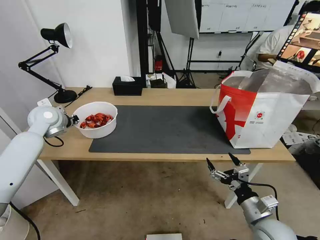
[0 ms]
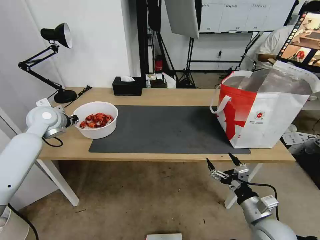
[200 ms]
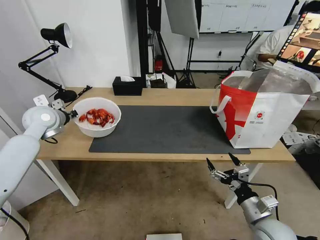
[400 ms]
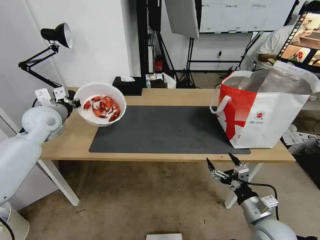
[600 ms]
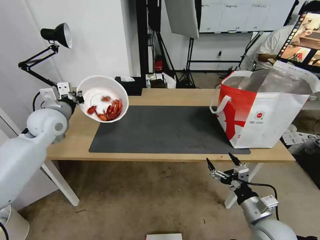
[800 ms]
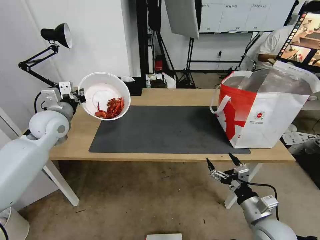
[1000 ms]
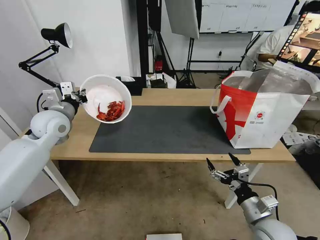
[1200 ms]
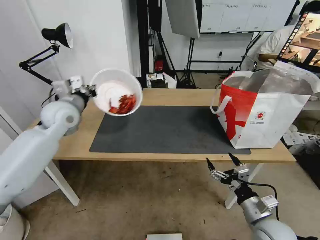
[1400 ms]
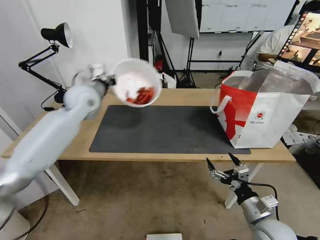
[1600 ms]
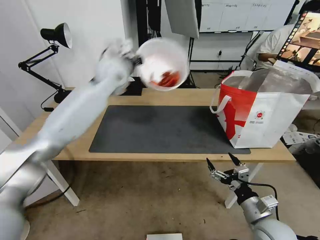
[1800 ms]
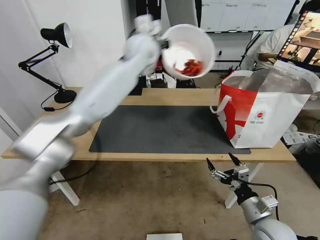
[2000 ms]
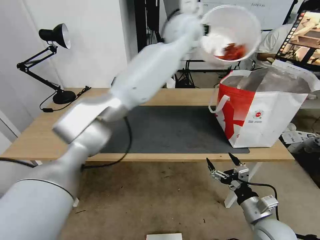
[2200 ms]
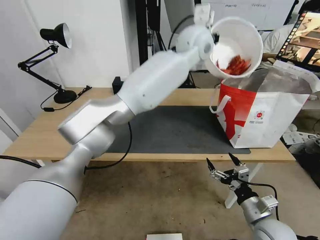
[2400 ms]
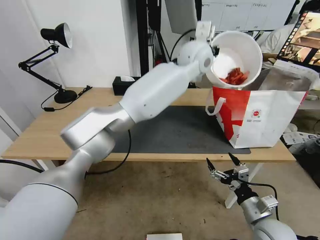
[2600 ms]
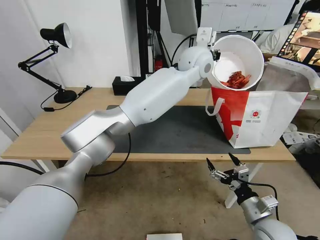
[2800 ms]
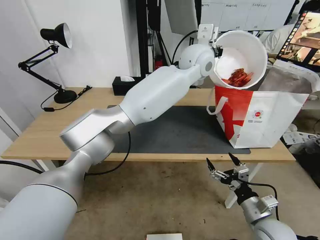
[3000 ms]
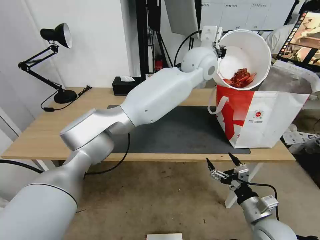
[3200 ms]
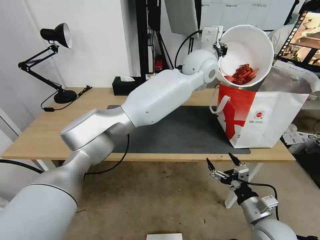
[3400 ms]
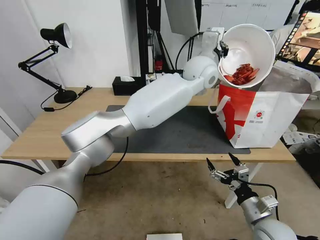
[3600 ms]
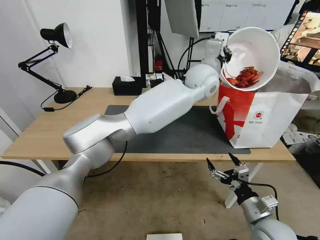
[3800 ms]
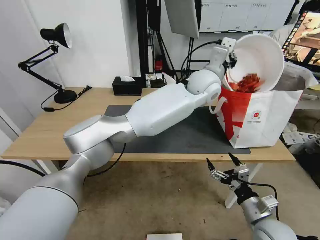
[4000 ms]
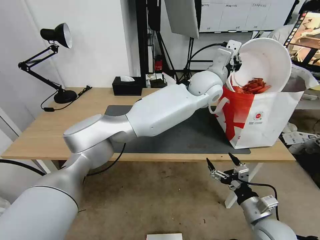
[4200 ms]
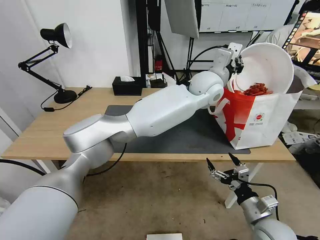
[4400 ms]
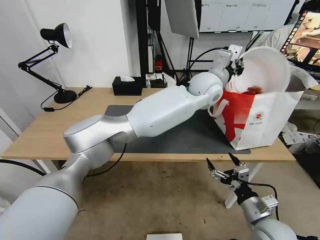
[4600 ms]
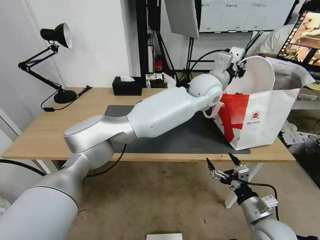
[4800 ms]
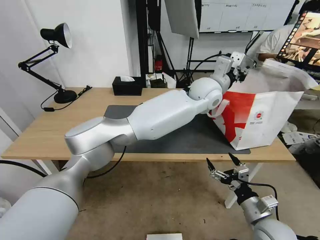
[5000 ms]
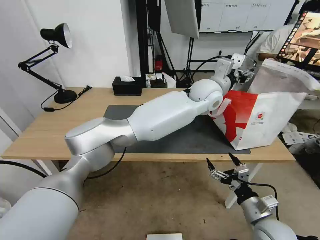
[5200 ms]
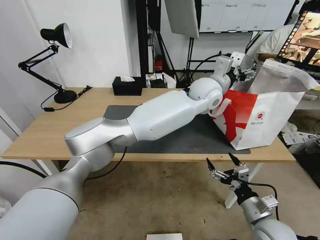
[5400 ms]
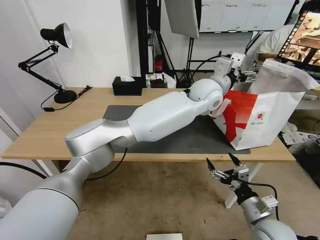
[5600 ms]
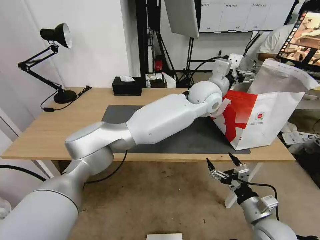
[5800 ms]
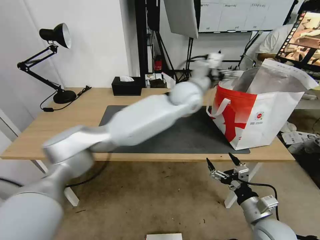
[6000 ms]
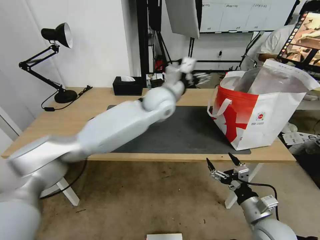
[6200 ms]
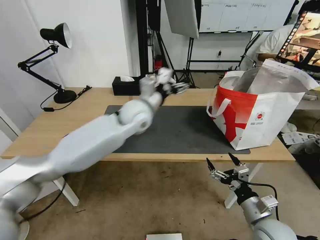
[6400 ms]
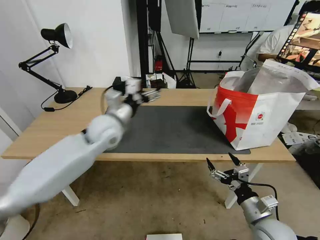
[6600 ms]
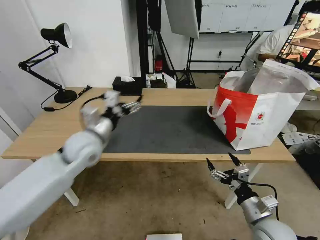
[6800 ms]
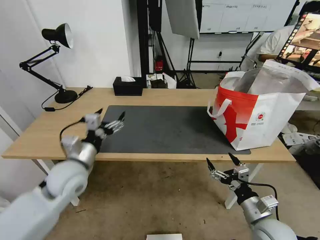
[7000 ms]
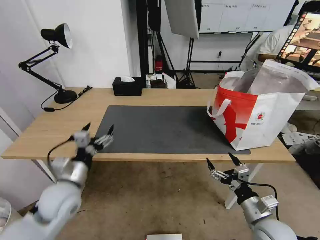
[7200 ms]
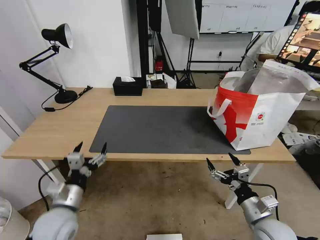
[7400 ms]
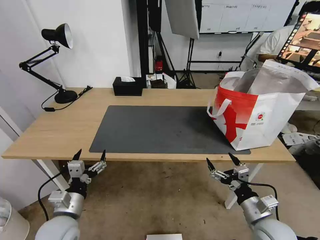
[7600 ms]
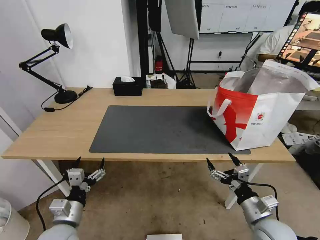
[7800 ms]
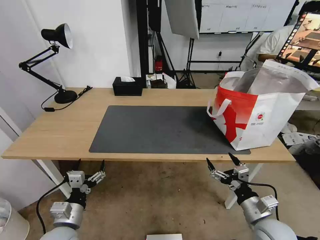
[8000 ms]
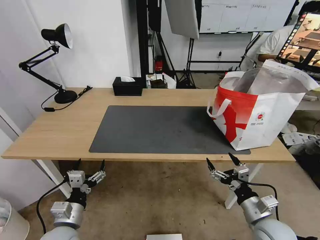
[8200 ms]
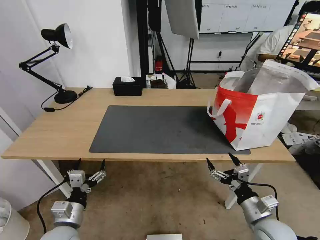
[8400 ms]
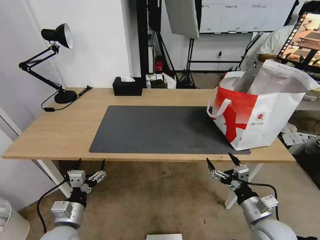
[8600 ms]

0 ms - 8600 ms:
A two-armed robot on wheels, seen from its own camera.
Task of the whole recording: Pick up the trash from the table and place it into the takeout bag.
0 ms - 1400 ms: The left gripper goes some 10 cm to the right.
1400 ms - 2800 ms: The left gripper is displaced to the right by some 40 cm.
2800 ms - 4400 ms: The left gripper is displaced downward by approximately 5 cm.
4400 ms - 5800 ms: The left gripper opens.
5800 ms - 7200 ms: The left gripper moves to the left, backward and downward, some 50 cm.
7200 ms - 8600 ms: The left gripper shifts roughly 10 cm downward and backward.

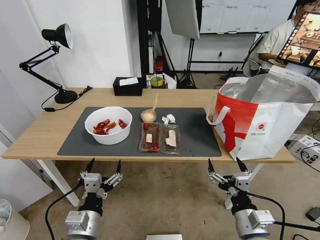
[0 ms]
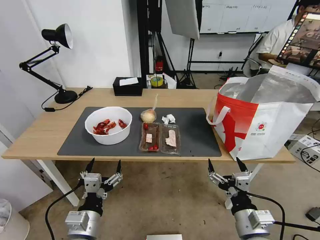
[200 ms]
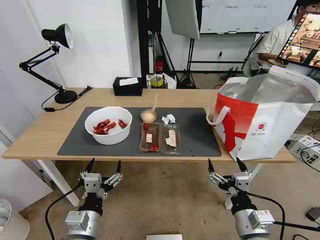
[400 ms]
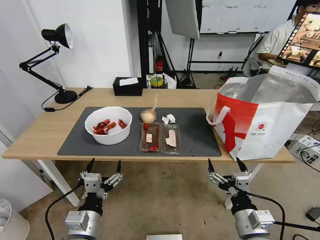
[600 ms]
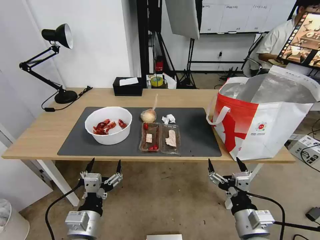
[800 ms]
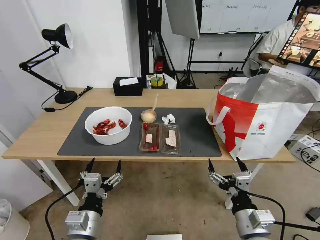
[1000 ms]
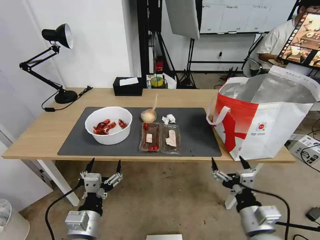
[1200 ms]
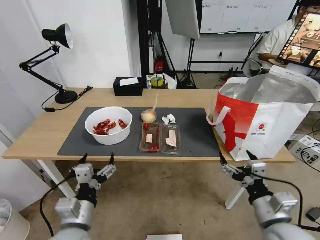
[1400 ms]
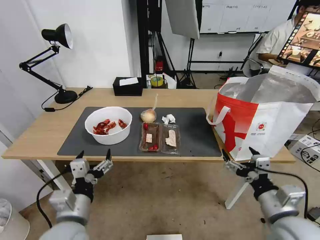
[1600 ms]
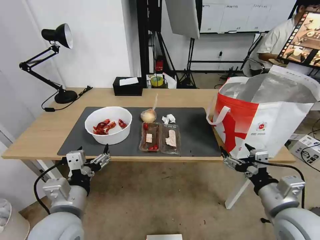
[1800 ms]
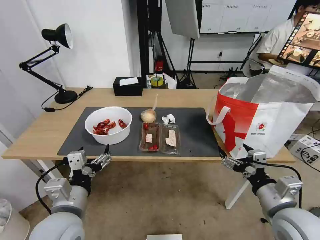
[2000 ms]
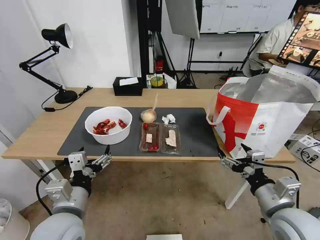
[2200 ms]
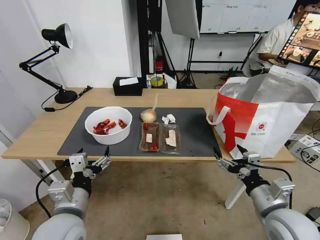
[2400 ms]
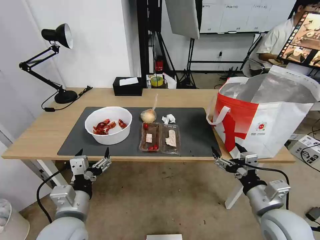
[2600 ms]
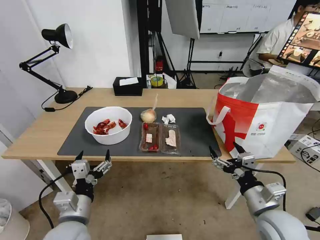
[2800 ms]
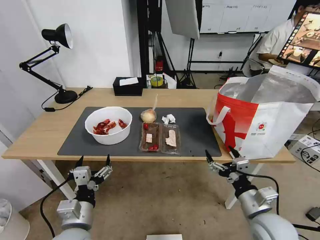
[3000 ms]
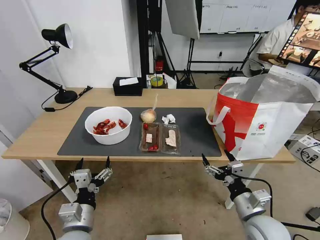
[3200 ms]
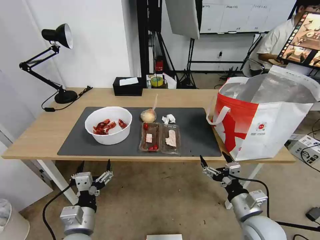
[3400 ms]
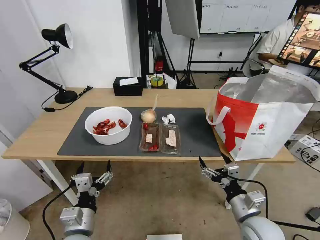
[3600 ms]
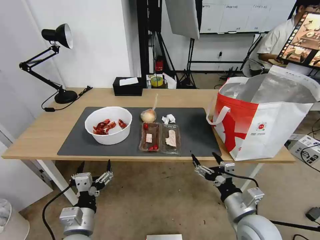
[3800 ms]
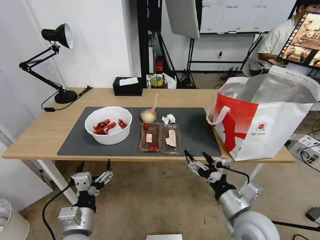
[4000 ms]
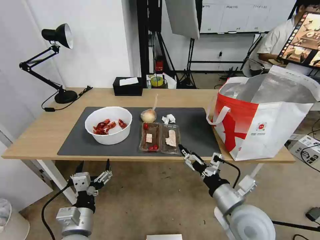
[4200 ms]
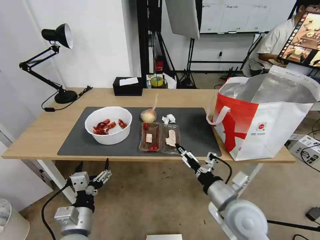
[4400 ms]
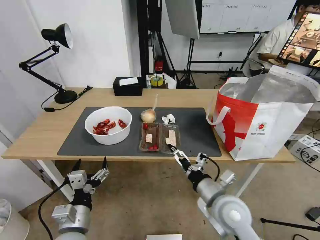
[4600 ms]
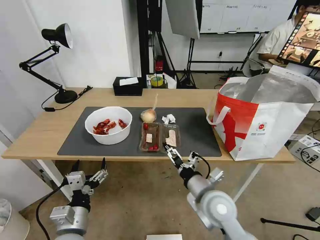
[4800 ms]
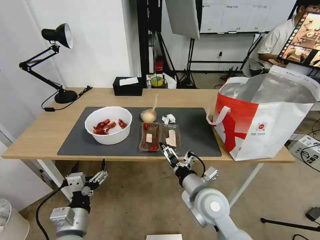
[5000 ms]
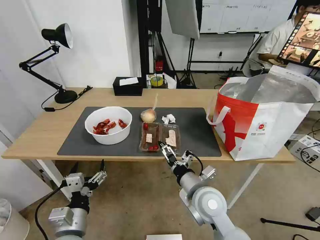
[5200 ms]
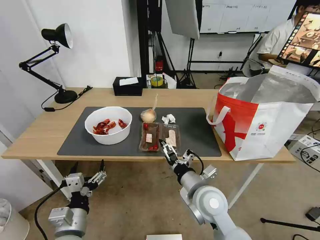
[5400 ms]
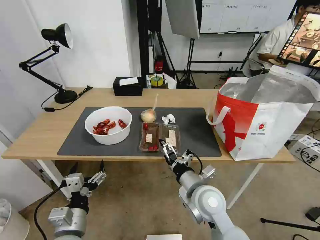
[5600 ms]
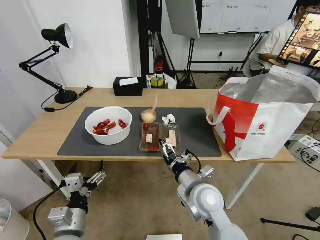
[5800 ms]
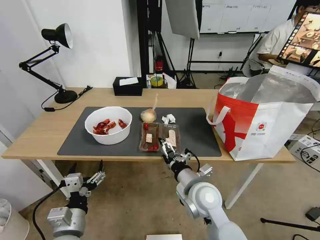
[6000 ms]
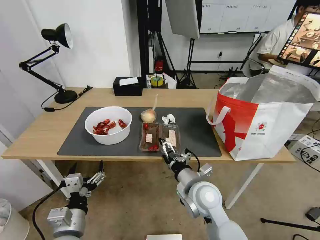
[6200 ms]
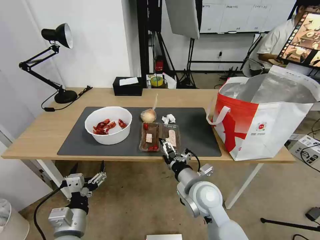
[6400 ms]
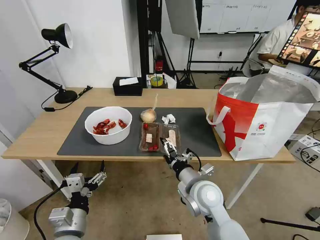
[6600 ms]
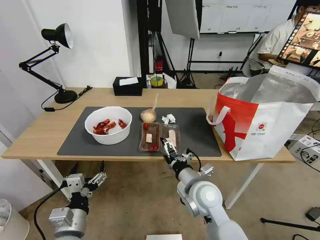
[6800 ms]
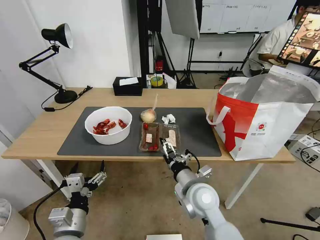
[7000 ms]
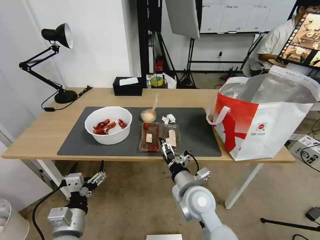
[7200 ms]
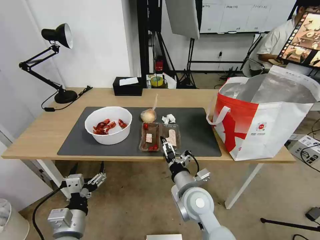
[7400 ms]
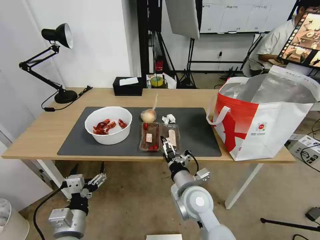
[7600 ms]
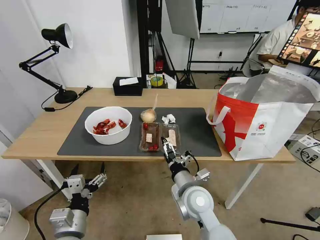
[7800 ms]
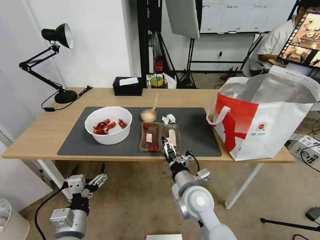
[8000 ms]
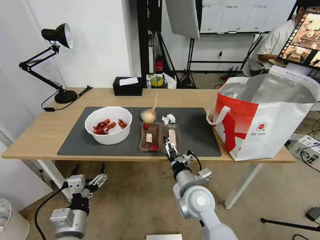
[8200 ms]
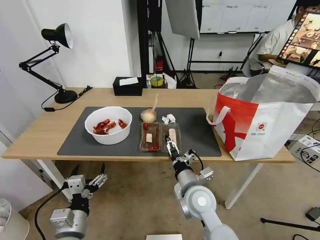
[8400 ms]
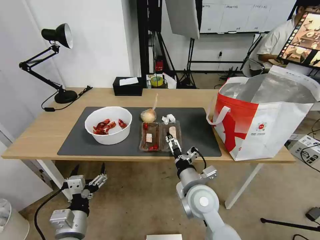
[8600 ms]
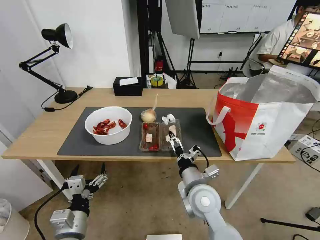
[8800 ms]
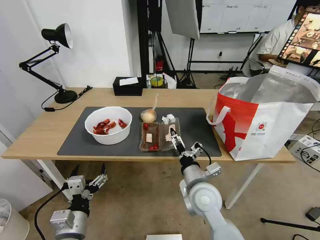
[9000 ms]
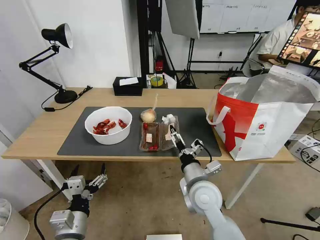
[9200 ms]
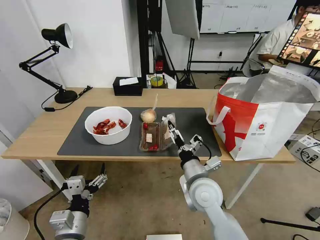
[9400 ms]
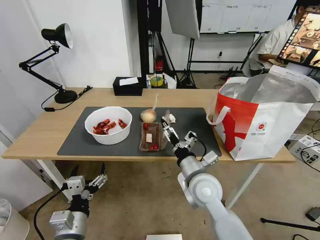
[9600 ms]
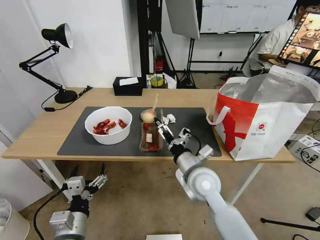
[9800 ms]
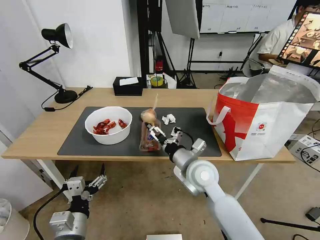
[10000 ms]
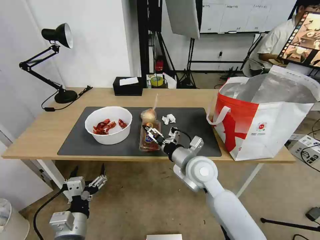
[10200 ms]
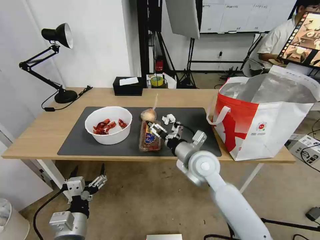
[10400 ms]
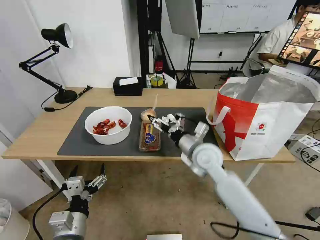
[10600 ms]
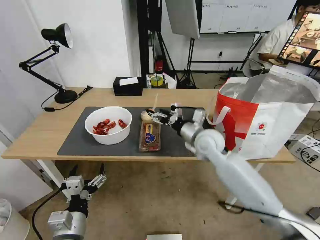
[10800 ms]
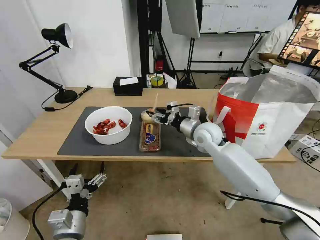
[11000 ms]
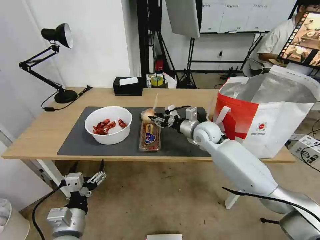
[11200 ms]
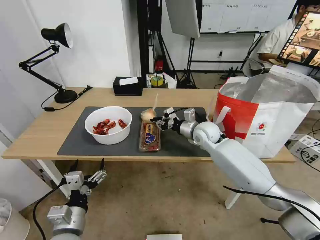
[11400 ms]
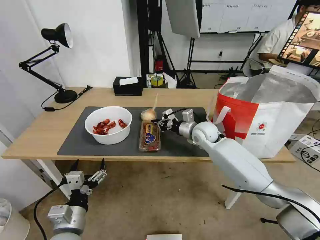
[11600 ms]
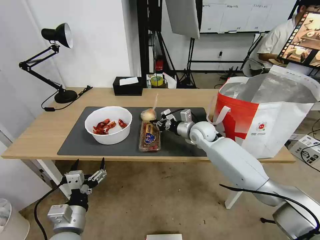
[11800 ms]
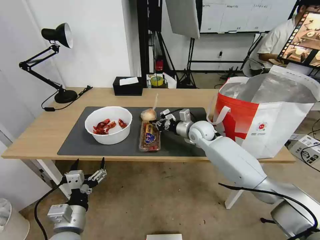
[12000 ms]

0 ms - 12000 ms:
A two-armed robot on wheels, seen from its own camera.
Task of the whole recording: Pick up the trash from the table and place it into the takeout bag.
1600 ms - 3000 ms: Both grippers move downward, about 5 cm.
3000 ms - 4400 ms: The right gripper moves to the left, about 10 cm.
4400 ms - 6000 ms: The right gripper moves to the left and forward, roughly 10 cm.
6000 ms - 7600 ms: The grippers stay close to where they were, moving slightly.
7600 ms - 9000 ms: There are only small adjustments of the grippers.
9000 ms - 10400 ms: The right gripper shifts some 10 cm forward and upward.
10400 ms - 12000 ms: The right gripper is displaced forward by approximately 15 cm, and closes up.

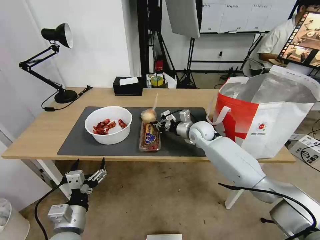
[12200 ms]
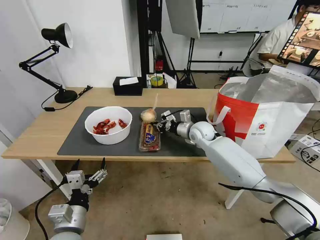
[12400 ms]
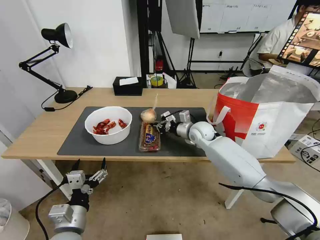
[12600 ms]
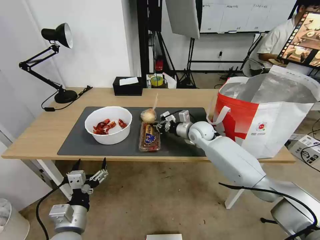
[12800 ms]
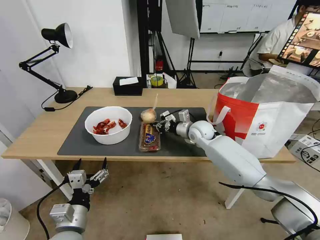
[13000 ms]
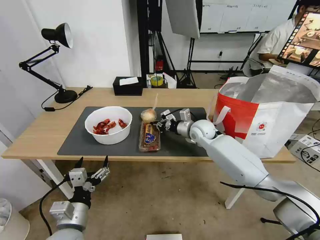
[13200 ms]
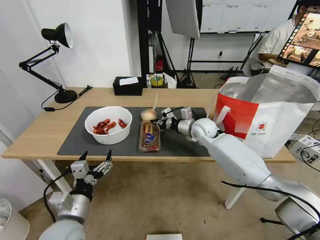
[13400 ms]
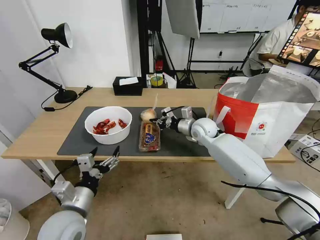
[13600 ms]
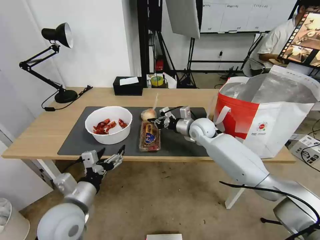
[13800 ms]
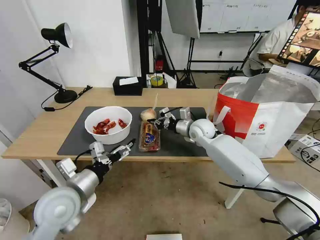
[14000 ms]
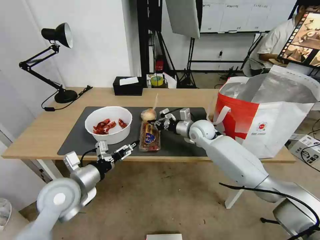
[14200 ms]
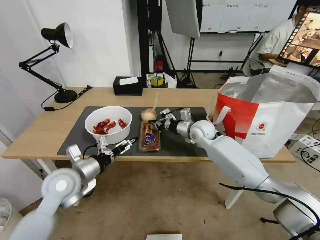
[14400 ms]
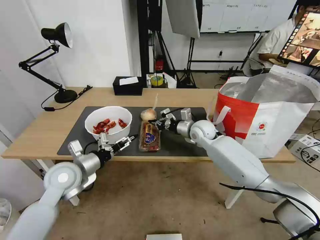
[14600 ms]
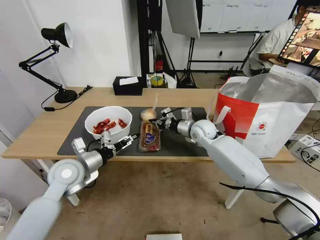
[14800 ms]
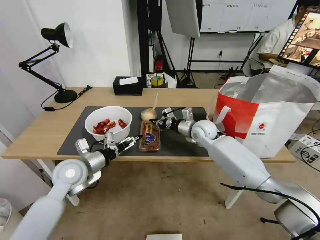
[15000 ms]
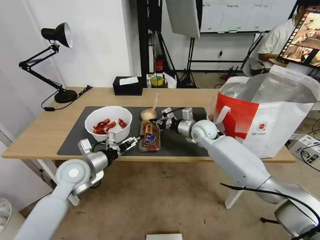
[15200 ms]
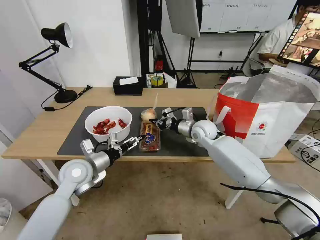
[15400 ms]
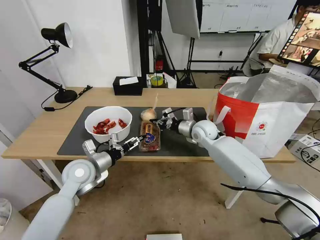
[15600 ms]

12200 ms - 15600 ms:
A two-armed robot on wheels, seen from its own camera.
Task of the whole recording: Pick up the trash from the table and place it into the takeout bag.
12200 ms - 13800 ms: The left gripper heads upward and forward, covering about 10 cm.
13800 ms - 15600 ms: The left gripper goes about 15 cm forward.
